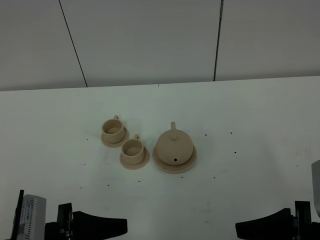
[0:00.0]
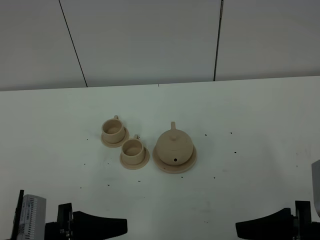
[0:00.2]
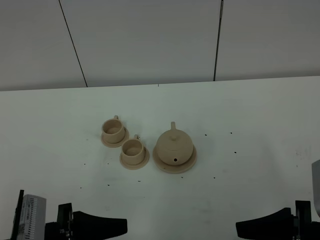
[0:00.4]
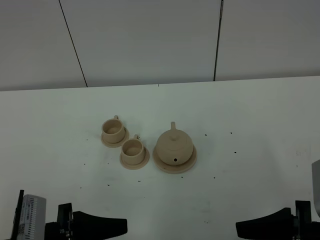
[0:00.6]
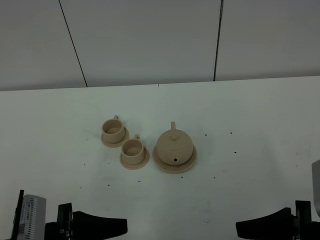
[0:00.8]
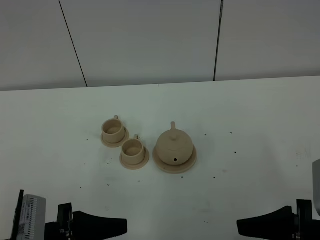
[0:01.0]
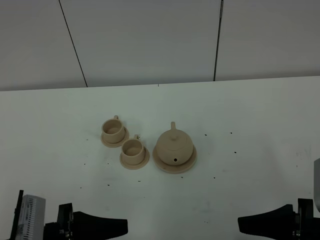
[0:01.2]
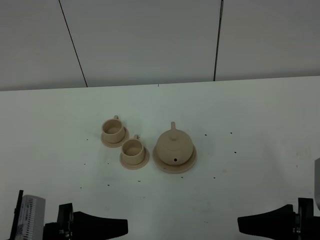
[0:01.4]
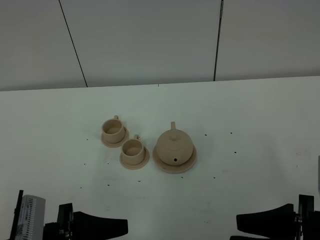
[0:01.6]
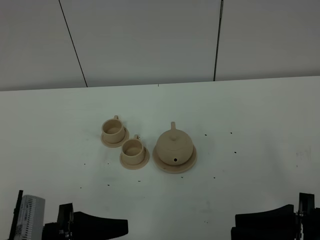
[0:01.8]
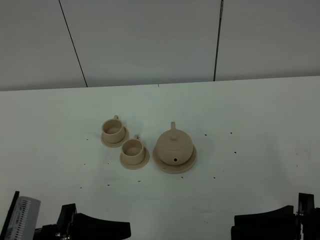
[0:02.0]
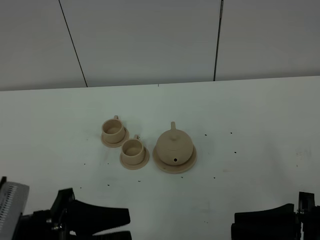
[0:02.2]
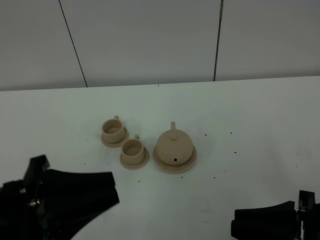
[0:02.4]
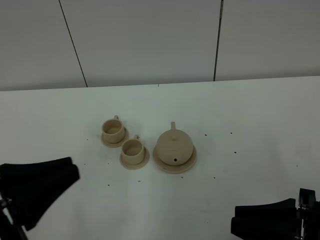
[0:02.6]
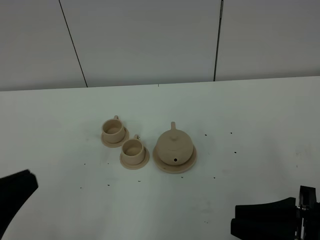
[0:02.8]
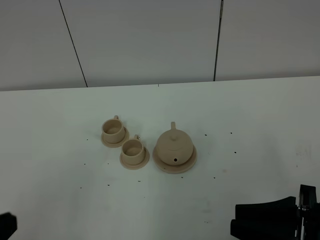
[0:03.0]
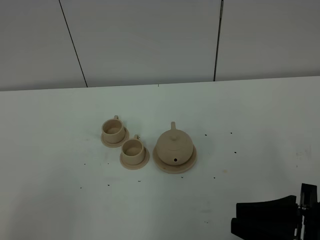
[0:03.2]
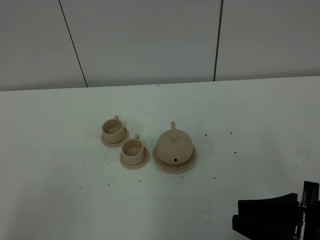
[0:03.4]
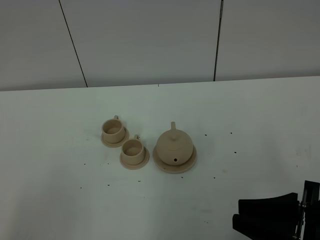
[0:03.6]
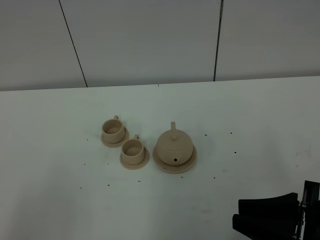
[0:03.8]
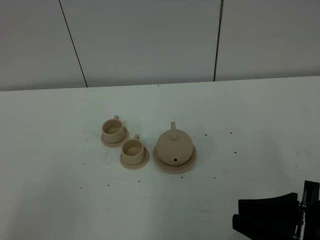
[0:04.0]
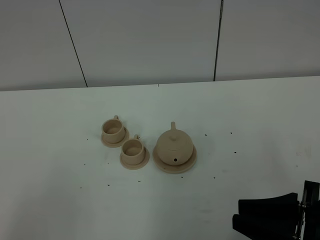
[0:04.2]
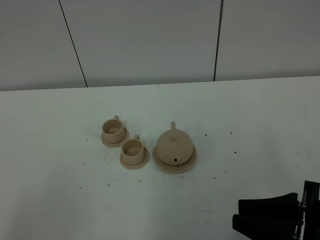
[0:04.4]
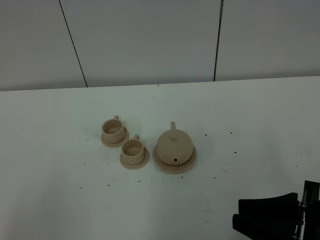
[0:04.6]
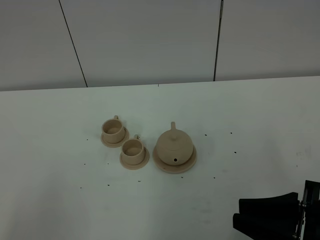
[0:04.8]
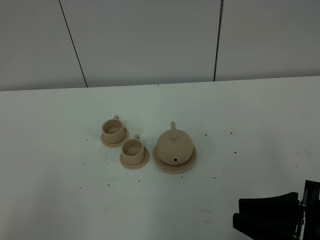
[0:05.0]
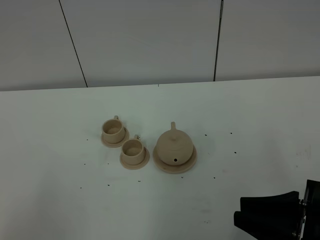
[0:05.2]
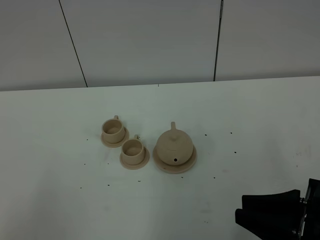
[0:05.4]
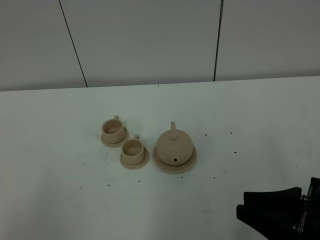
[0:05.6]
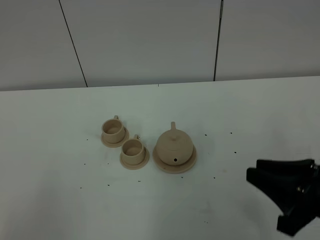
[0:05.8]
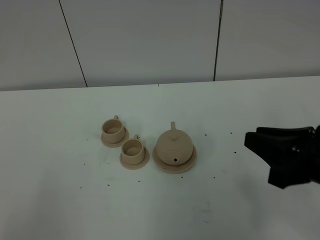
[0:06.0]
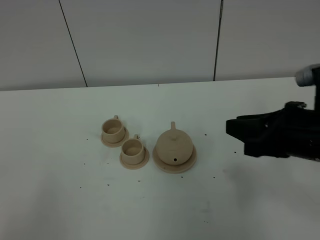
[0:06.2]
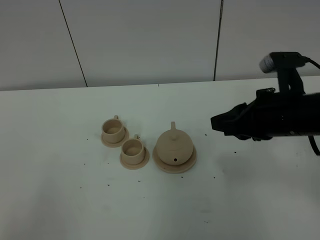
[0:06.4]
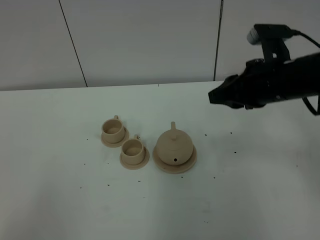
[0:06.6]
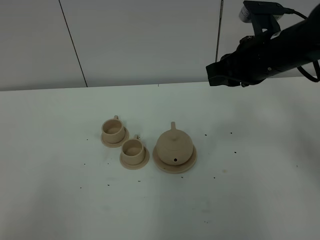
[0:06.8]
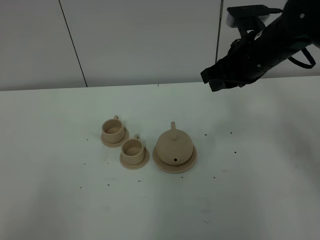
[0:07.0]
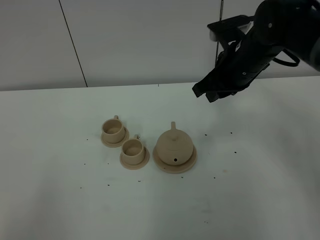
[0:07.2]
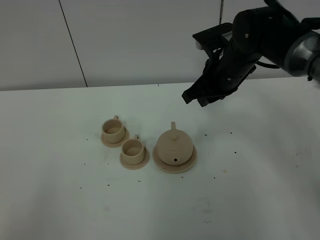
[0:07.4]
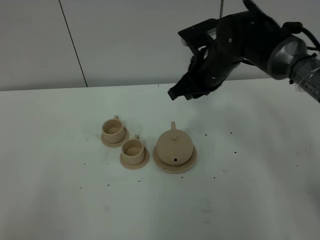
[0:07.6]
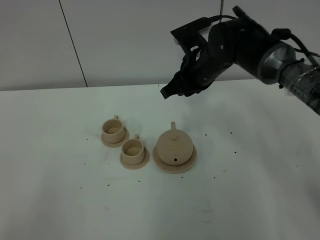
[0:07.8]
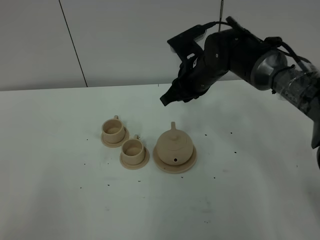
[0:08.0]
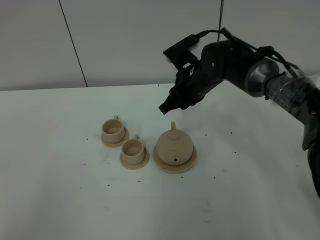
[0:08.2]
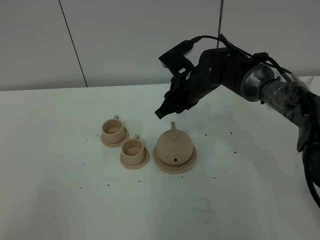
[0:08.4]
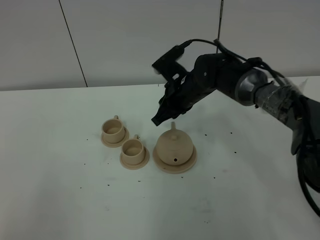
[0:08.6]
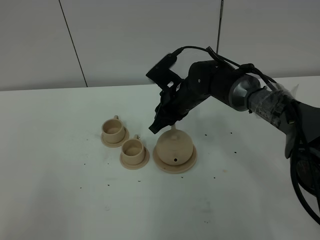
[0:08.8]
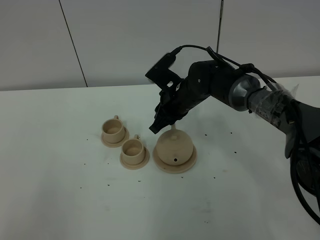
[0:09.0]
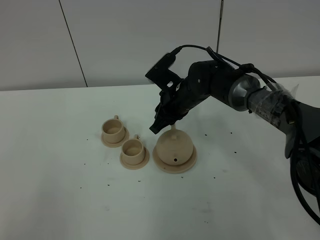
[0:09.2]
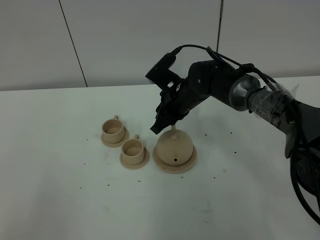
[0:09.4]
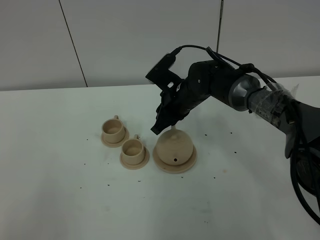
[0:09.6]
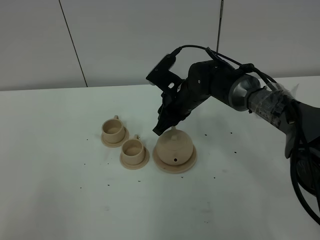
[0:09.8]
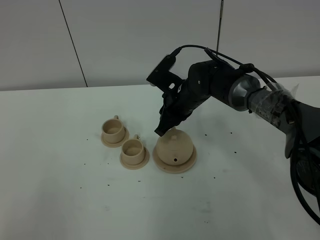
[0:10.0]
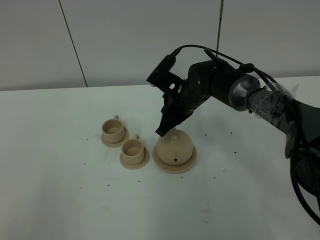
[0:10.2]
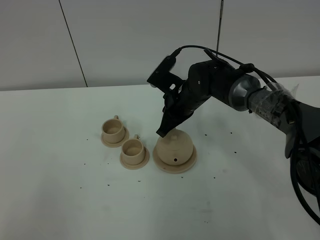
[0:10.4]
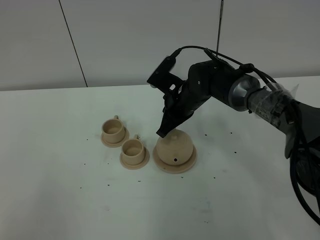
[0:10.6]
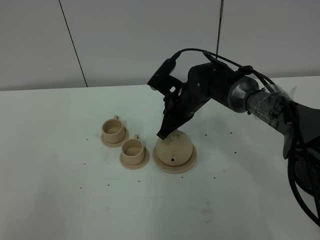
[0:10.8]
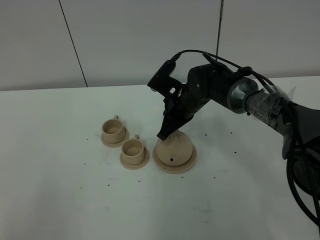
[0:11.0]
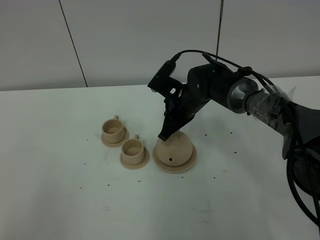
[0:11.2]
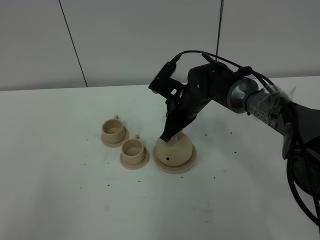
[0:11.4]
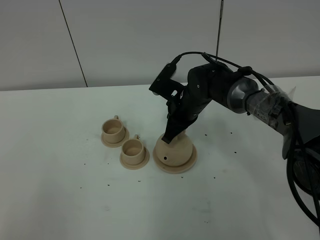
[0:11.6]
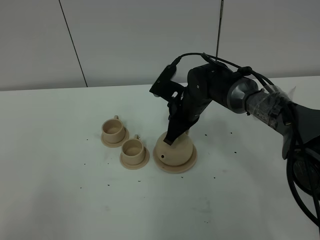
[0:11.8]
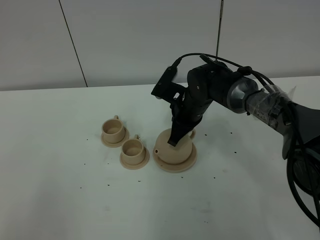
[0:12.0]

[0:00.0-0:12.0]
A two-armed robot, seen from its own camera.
Task of the whole recording: grasp the brown teapot and pour the tea into the two brown teacups one by one, put the brown teapot back in its original place.
0:00.0 to 0:01.6: The grippers stay close to where they were, moving slightly.
0:01.6 to 0:03.0: The left gripper moves upward, to the left and backward, approximately 15 cm, and closes up.
0:03.0 to 0:04.4: The grippers make only small movements.
0:04.4 to 0:06.0: The right gripper moves forward, about 5 cm.
0:06.0 to 0:07.6: The right gripper travels forward and to the left by about 30 cm.
0:07.6 to 0:09.0: The right gripper is displaced downward by about 10 cm.
0:09.0 to 0:10.4: The right gripper closes.
0:10.4 to 0:12.0: There are only small adjustments of the grippers.

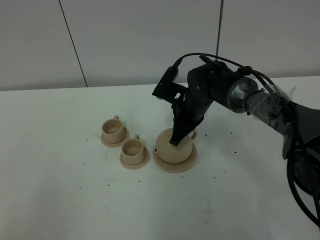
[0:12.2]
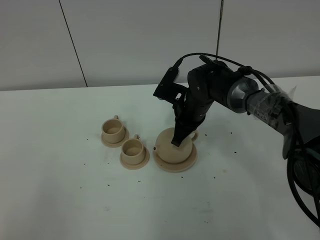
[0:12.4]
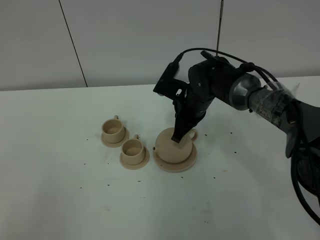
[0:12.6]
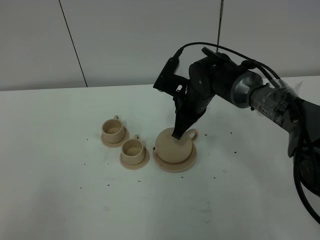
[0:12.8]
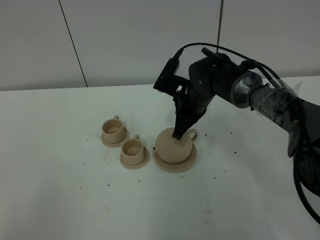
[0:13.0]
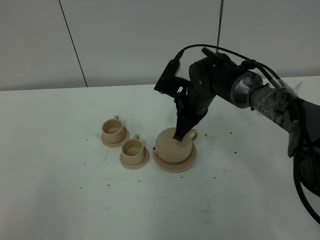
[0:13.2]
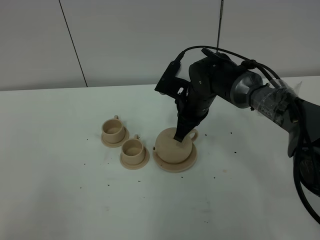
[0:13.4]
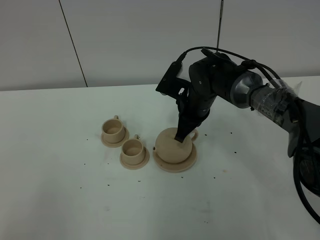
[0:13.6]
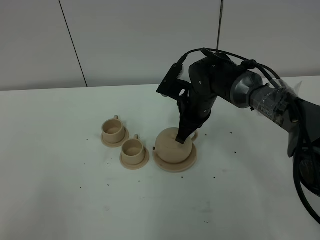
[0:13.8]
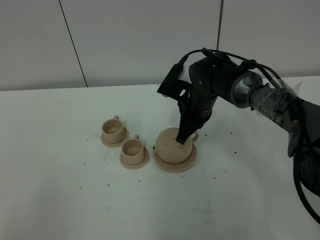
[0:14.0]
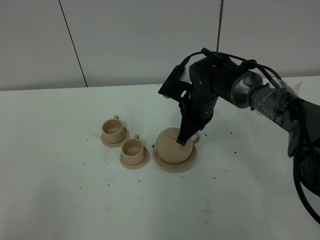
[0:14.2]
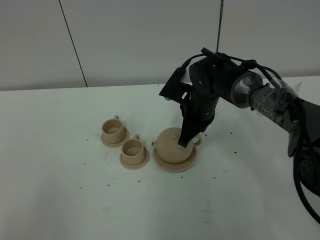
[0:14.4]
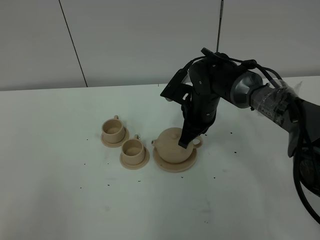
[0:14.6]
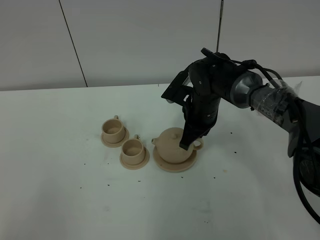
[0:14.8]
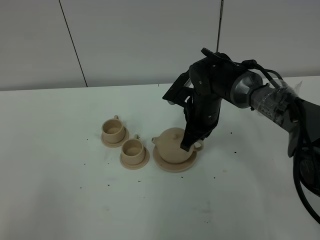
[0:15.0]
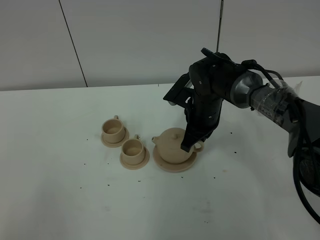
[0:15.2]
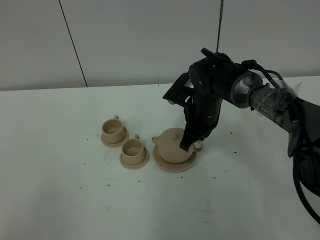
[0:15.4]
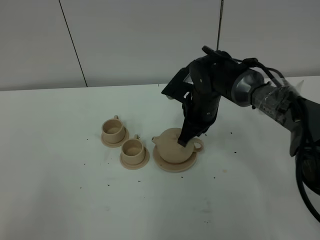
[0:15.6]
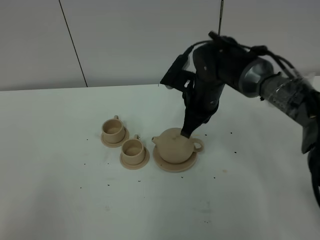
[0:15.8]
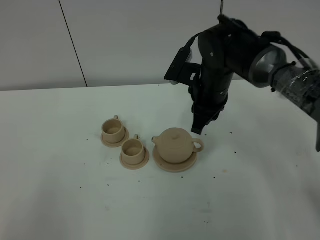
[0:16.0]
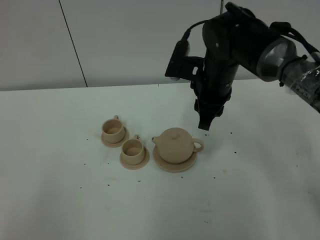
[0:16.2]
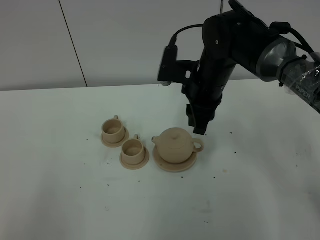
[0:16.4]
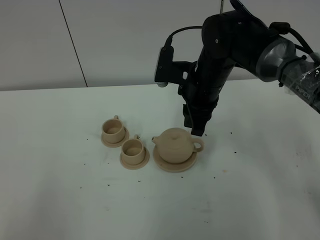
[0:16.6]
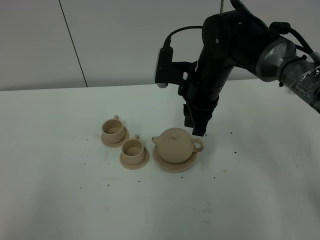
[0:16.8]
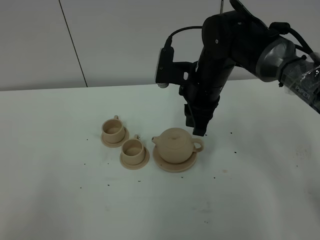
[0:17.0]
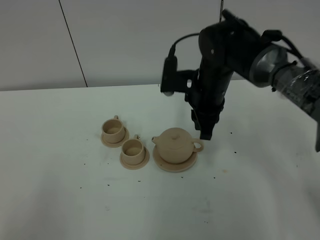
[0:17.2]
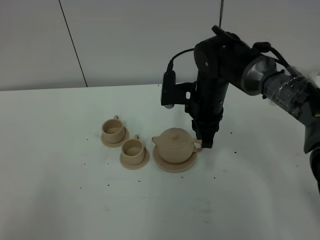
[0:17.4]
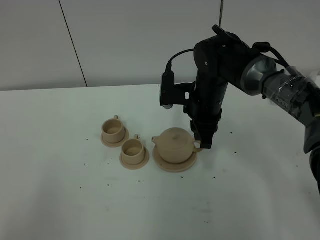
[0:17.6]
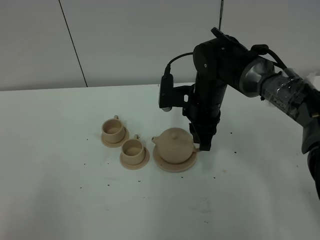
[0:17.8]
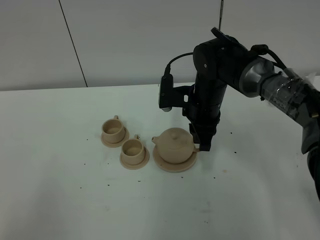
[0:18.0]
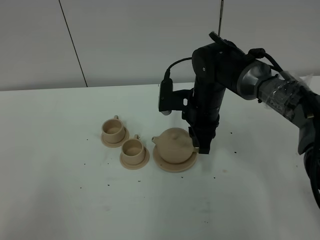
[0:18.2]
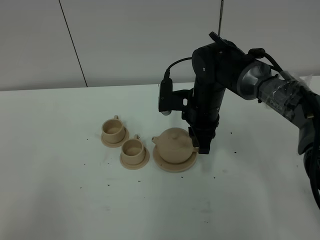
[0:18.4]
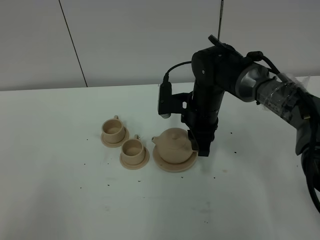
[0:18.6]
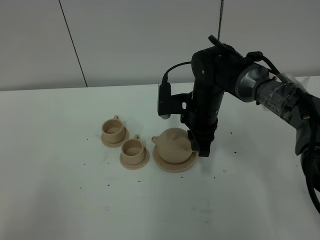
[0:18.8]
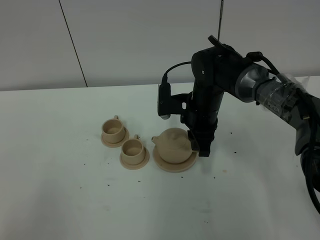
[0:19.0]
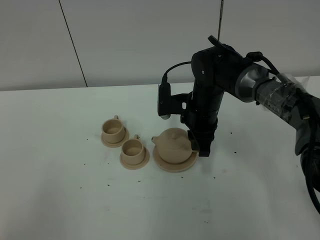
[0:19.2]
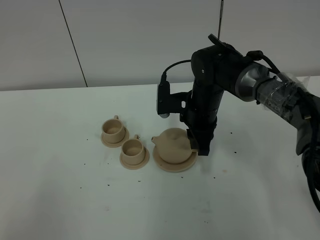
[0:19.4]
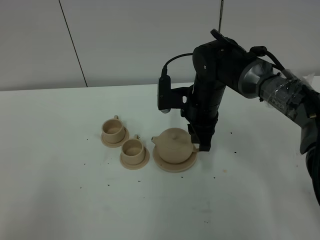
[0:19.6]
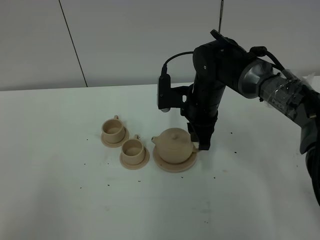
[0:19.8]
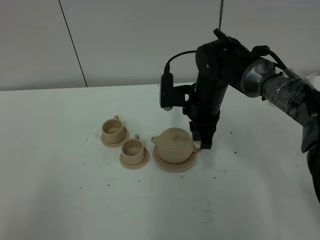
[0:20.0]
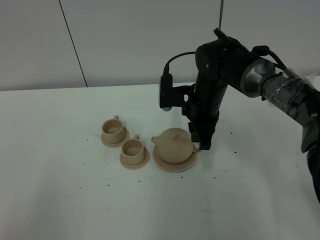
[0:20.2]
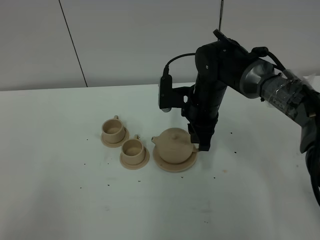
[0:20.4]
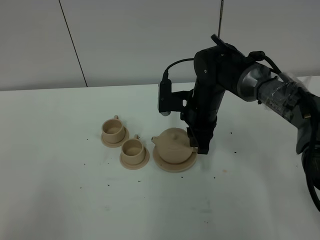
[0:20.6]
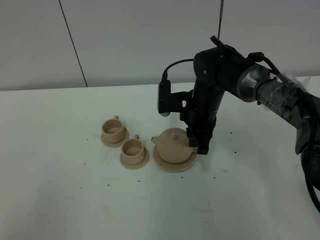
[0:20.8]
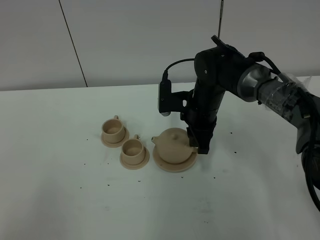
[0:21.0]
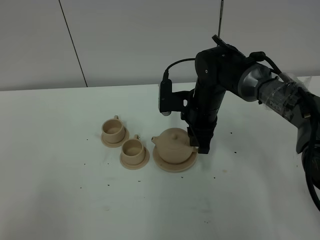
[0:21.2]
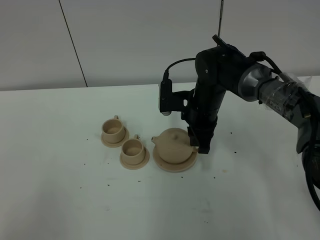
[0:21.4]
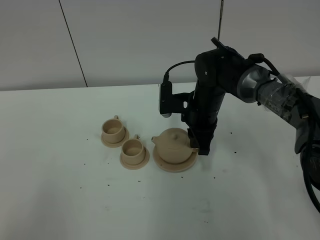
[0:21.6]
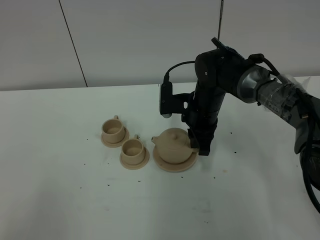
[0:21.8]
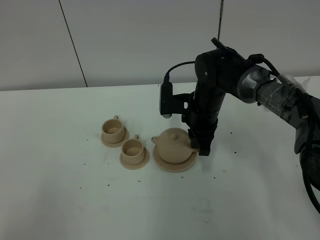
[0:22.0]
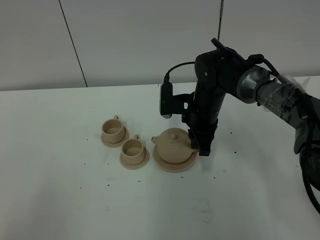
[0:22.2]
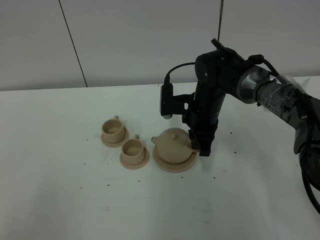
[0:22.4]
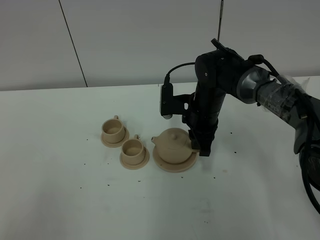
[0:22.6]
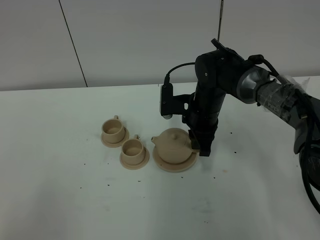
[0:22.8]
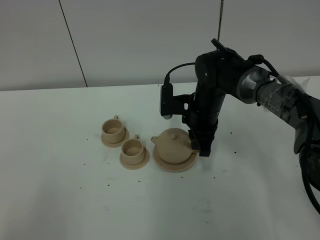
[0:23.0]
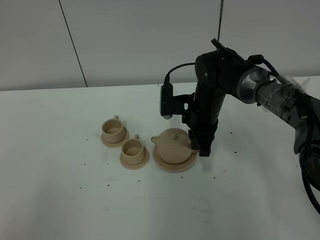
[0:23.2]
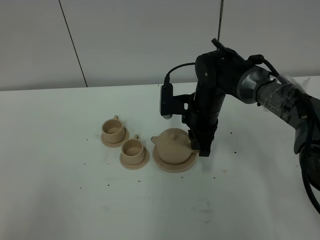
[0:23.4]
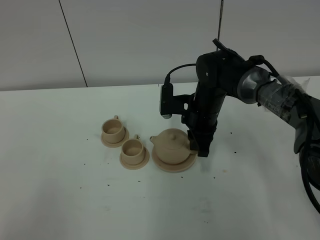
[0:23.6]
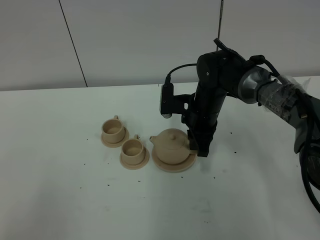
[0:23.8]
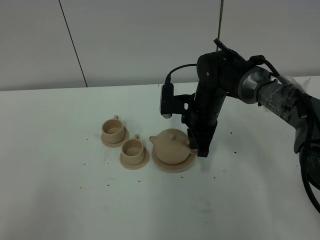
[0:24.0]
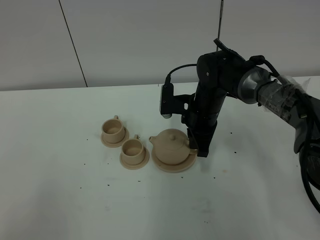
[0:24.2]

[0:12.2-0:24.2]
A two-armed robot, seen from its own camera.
Task of the whole recording: grasp the brown teapot and pour the tea into the two brown teacups one by one, put the brown teapot back in its original place.
0:12.2 to 0:15.2: There are only small adjustments of the grippers.
0:15.2 to 0:16.6: The right gripper travels upward by some 10 cm, and opens its fingers.
0:16.6 to 0:18.2: The right gripper moves downward, some 5 cm.
0:18.2 to 0:19.8: Neither gripper changes place.
0:19.8 to 0:21.2: The grippers move only a little.
0:21.2 to 0:22.6: Both grippers stay about where they are.
0:22.6 to 0:24.2: The right gripper closes.
